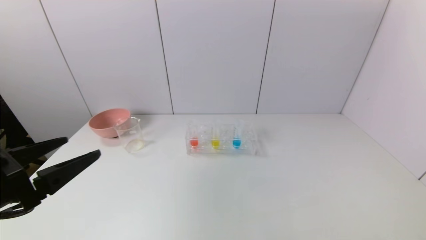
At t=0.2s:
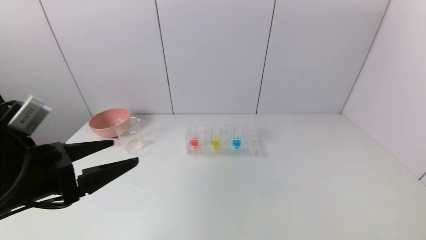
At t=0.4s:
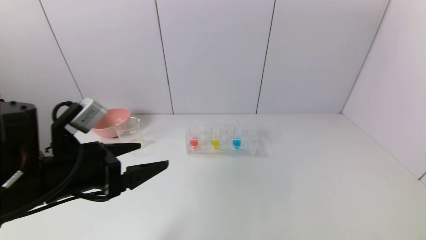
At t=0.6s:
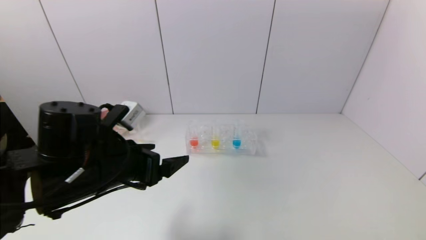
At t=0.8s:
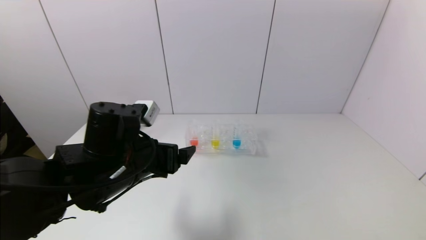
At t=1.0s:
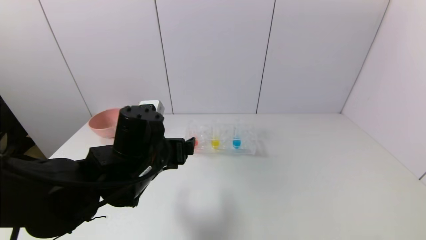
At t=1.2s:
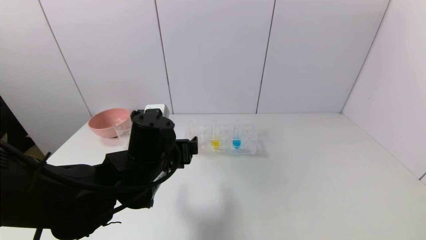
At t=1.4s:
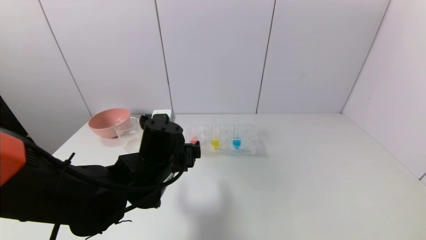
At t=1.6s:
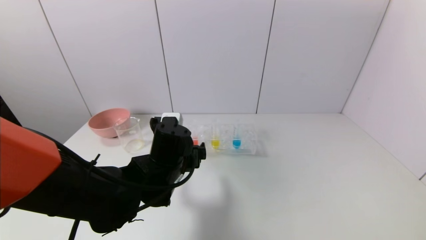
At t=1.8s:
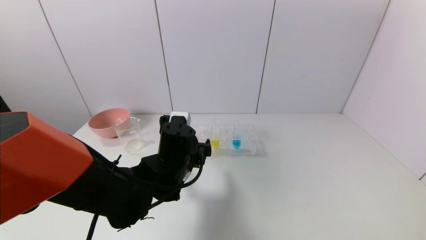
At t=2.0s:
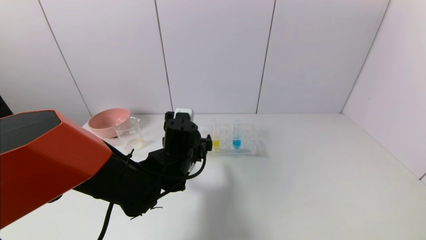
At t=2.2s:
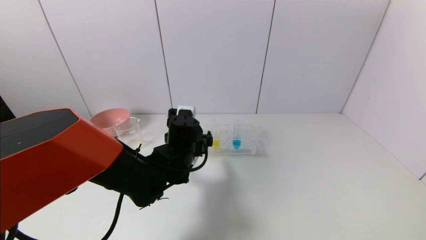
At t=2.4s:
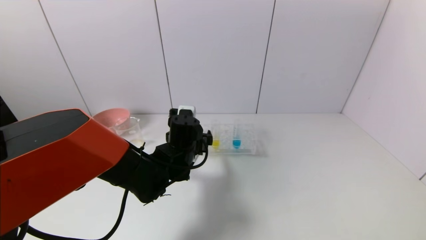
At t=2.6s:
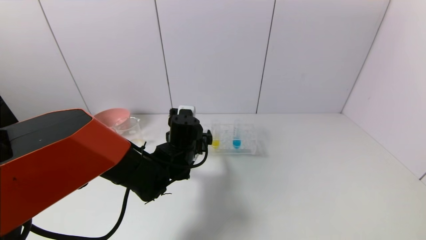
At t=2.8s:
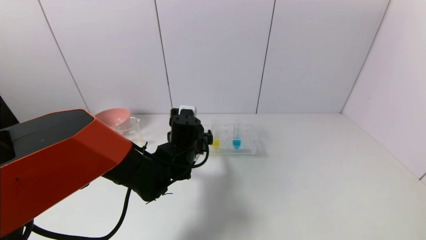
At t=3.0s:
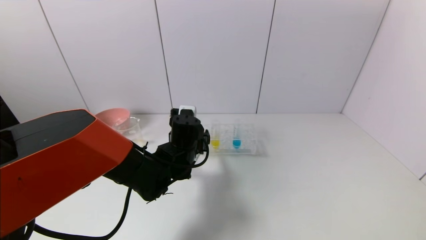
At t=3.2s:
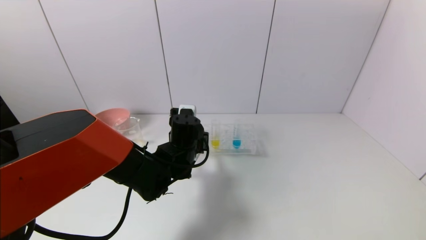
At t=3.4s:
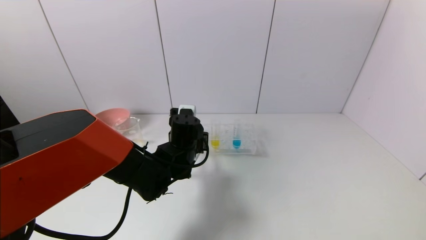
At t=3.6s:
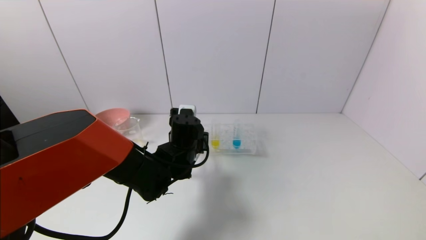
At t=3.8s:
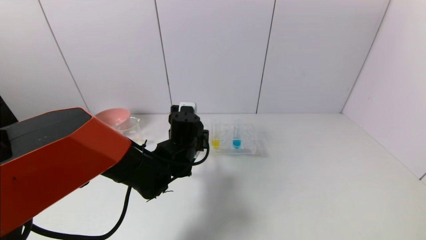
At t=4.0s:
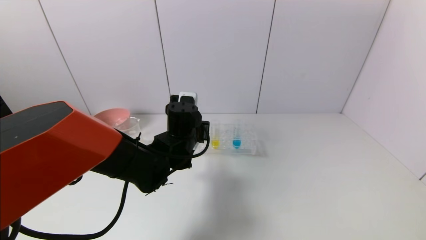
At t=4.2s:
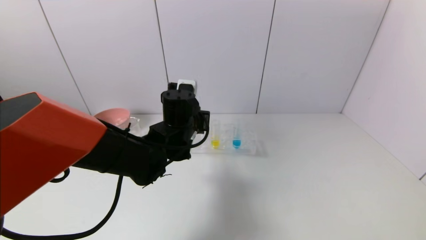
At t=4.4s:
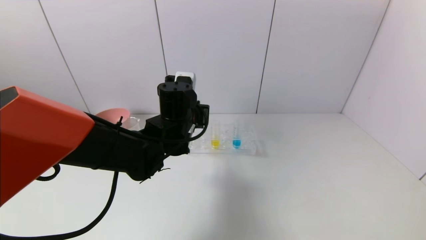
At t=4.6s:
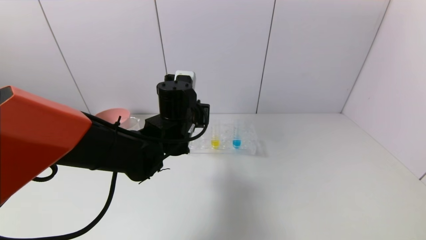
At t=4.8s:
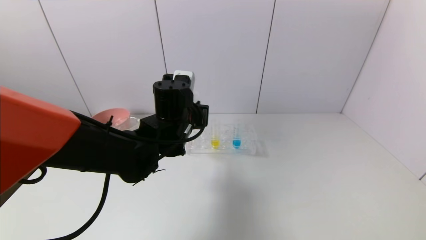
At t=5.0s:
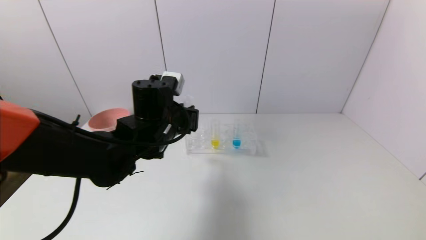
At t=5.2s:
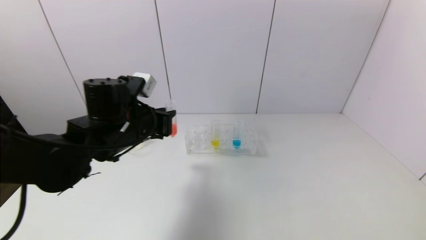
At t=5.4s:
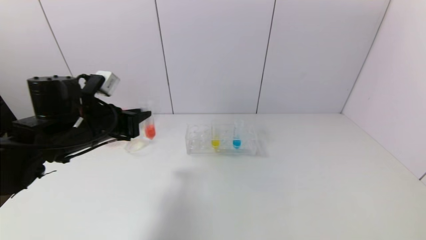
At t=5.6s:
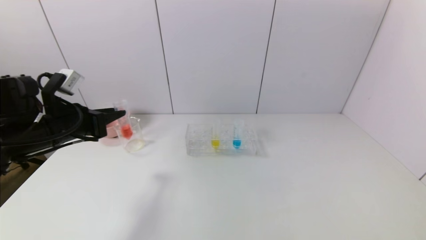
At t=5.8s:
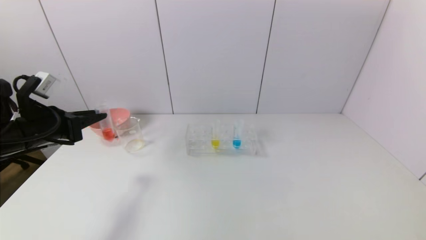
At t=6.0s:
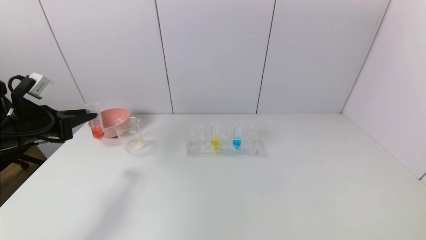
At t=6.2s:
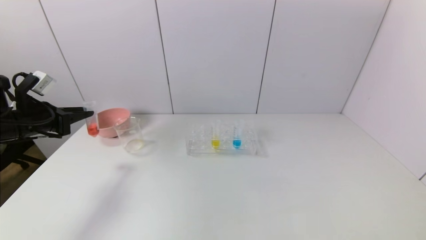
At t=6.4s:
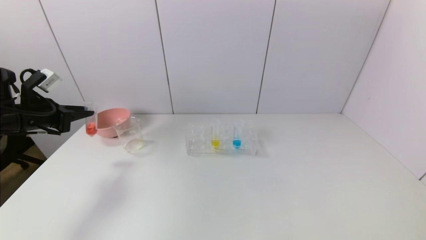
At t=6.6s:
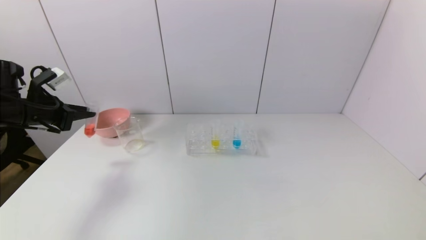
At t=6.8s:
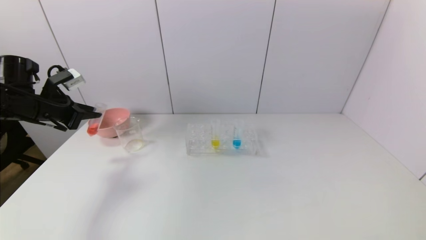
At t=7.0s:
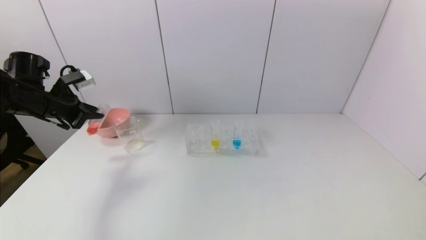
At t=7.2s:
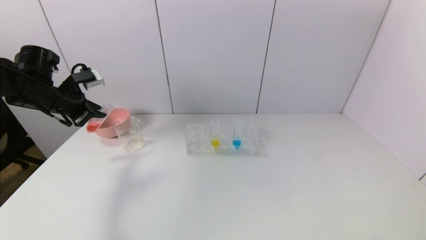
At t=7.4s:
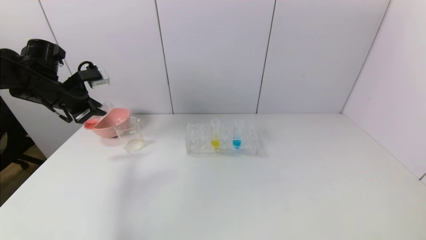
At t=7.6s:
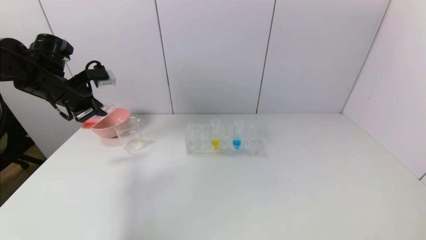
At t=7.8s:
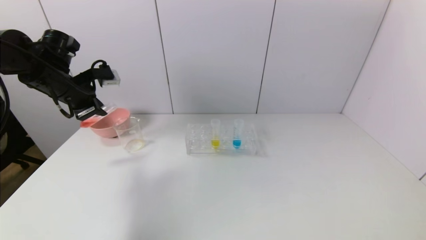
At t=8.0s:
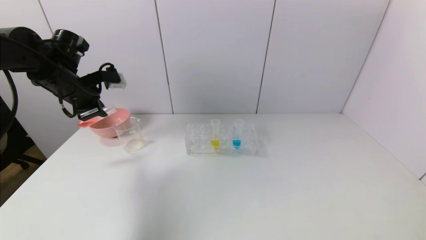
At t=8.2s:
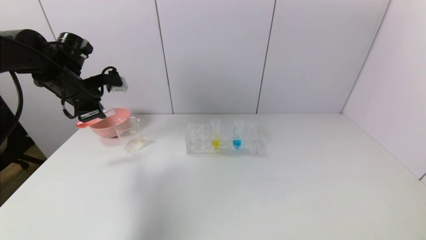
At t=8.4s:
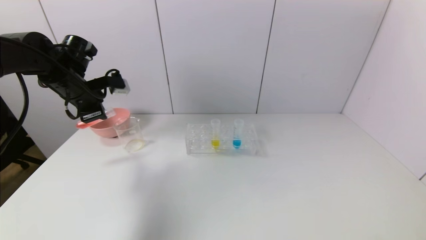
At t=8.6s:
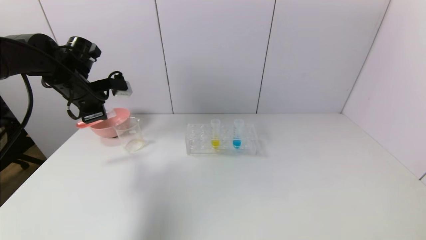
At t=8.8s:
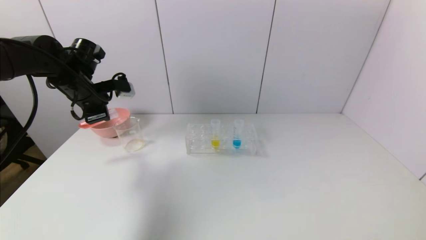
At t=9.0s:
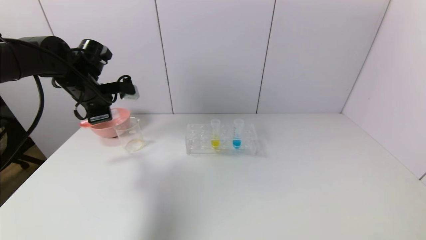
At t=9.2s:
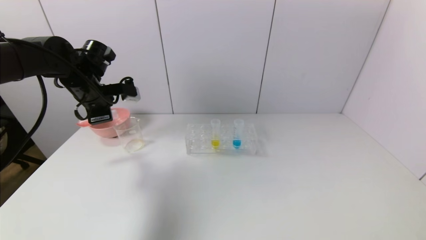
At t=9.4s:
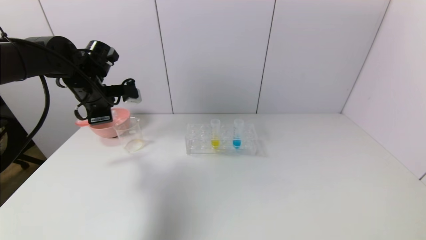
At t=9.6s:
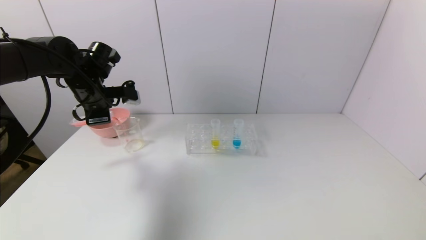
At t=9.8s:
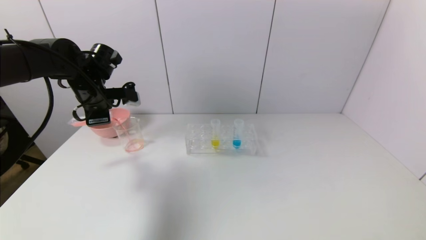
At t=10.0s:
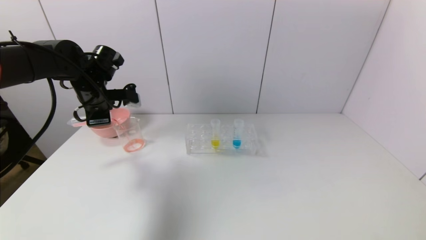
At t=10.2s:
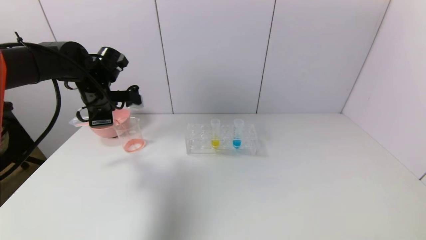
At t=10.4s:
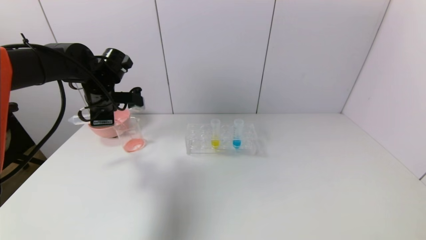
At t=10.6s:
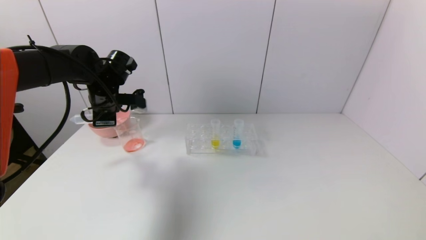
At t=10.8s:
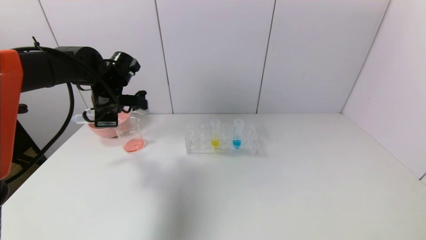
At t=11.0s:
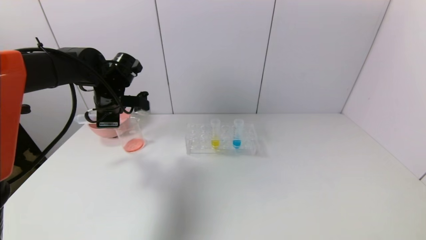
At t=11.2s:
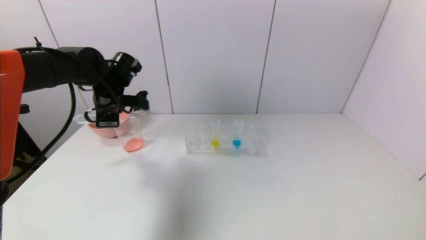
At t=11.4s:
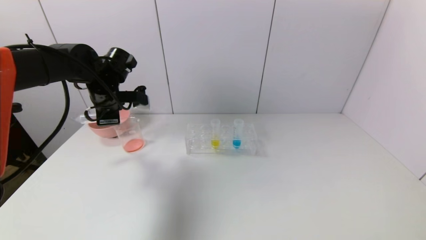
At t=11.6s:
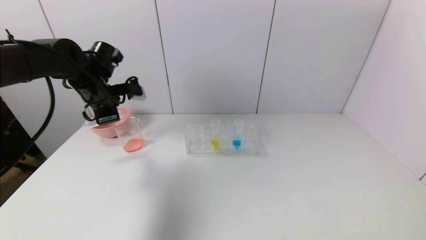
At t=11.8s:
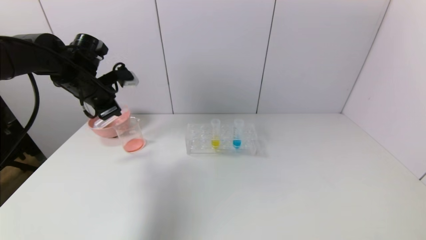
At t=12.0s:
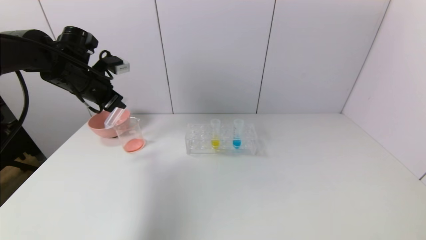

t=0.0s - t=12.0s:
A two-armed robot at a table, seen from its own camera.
Task of the whole recording: pick up the test tube with yellow pigment and the test tube with red pigment by grippers and pour them into the beaker.
Step, t=0.0s - t=3.6s: Grasp the red reagent with the left gripper.
Step, t=3.8s - t=11.0s: Pour the red reagent into the graduated cylinder with the left gripper.
t=0.0s - t=1.6s: The left gripper moves to the right, forward and downward, approximately 25 cm.
t=1.6s - t=3.0s: The left gripper is displaced forward by approximately 5 cm.
t=3.0s - t=4.4s: The left gripper moves upward, approximately 10 cm, and closes its fingers.
t=4.4s - t=6.0s: The left gripper goes approximately 30 cm to the left.
t=6.0s - t=7.6s: The left gripper travels forward and upward by some 10 cm.
t=7.6s - t=9.0s: The left gripper changes place by roughly 5 cm.
t=9.0s - t=10.4s: There are only small adjustments of the grippers.
t=10.4s - t=12.0s: The left gripper changes place by roughly 5 cm.

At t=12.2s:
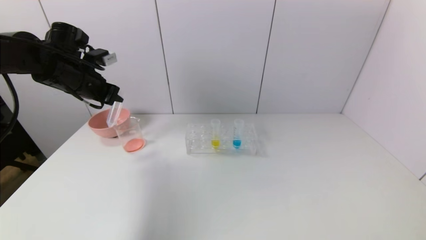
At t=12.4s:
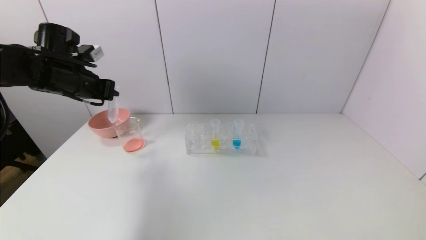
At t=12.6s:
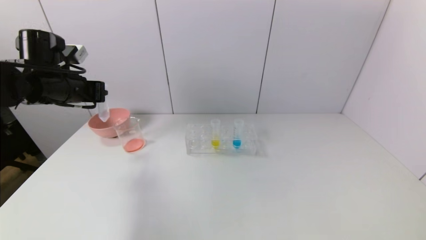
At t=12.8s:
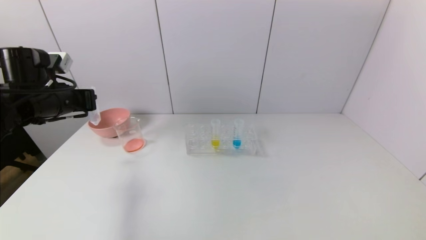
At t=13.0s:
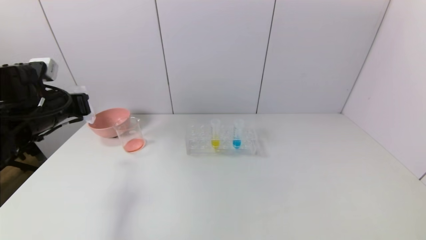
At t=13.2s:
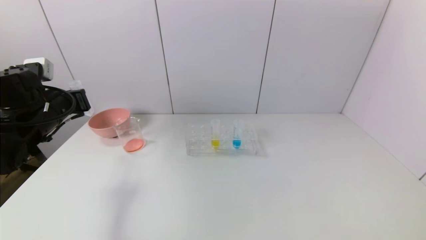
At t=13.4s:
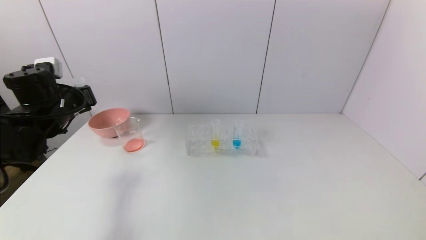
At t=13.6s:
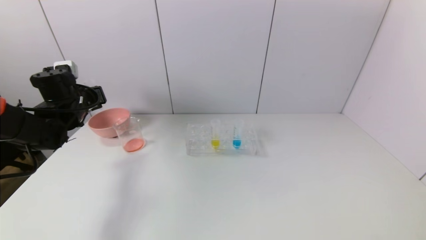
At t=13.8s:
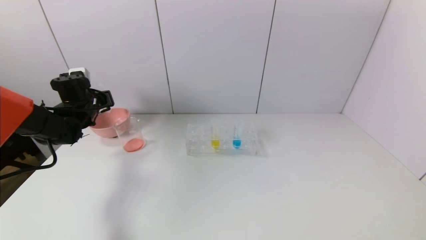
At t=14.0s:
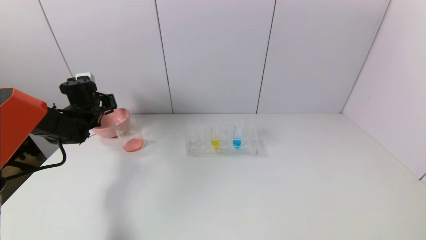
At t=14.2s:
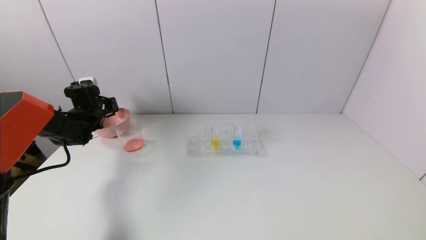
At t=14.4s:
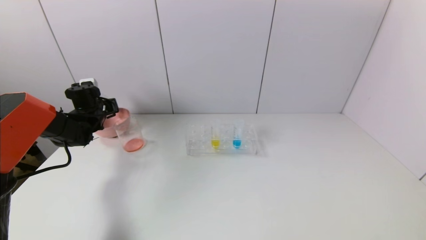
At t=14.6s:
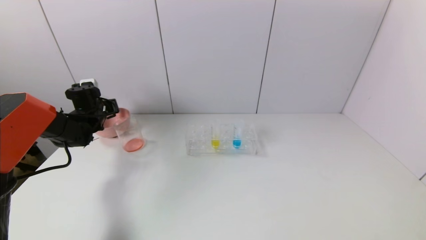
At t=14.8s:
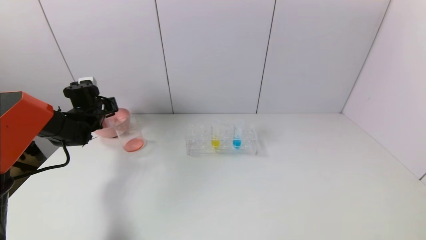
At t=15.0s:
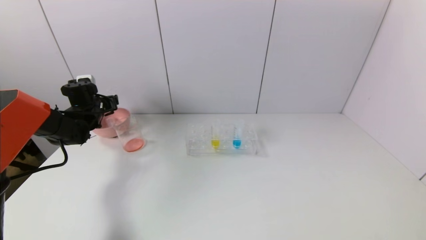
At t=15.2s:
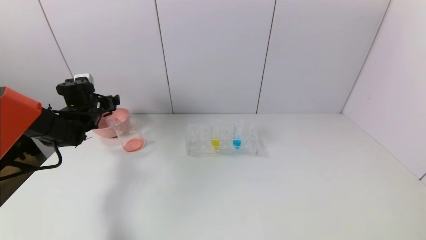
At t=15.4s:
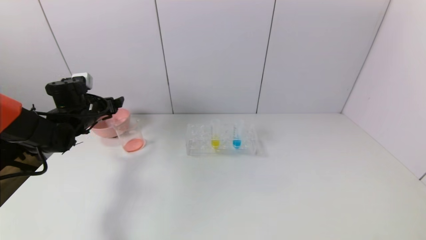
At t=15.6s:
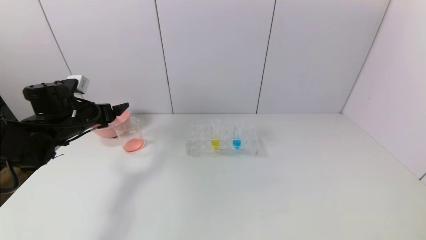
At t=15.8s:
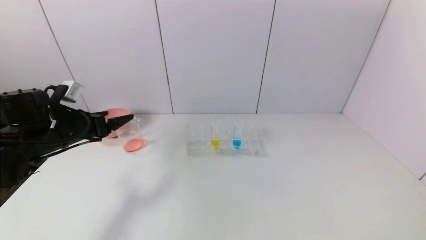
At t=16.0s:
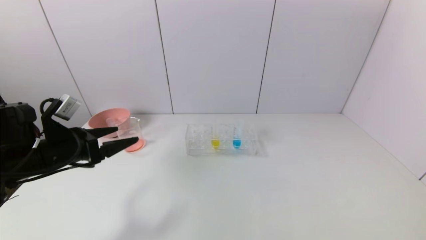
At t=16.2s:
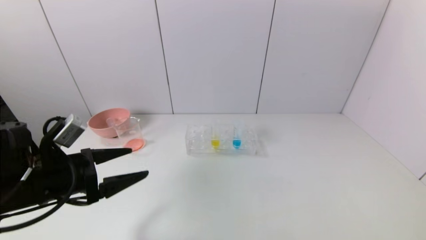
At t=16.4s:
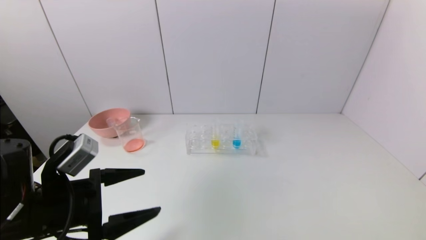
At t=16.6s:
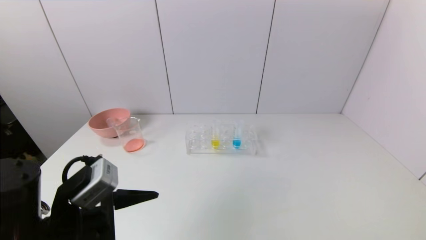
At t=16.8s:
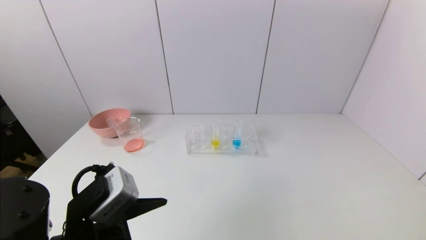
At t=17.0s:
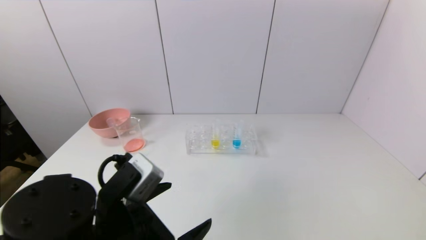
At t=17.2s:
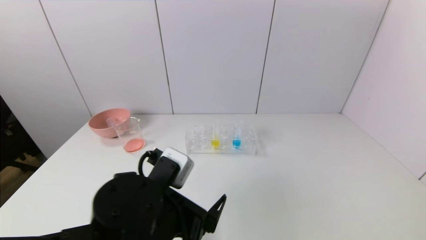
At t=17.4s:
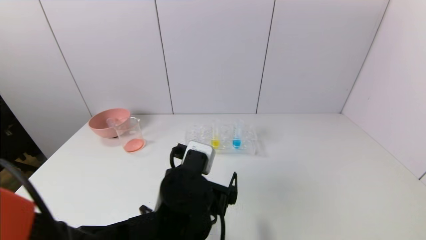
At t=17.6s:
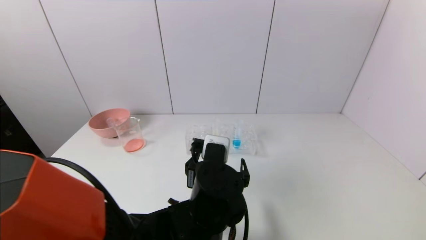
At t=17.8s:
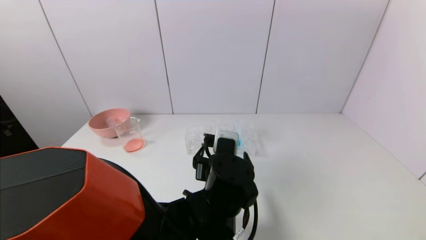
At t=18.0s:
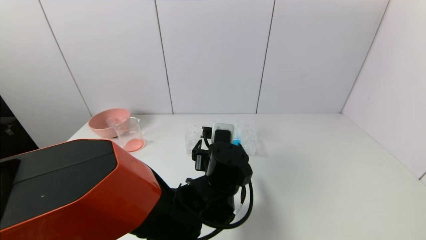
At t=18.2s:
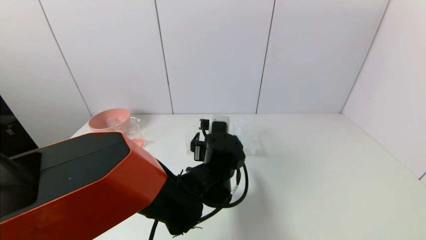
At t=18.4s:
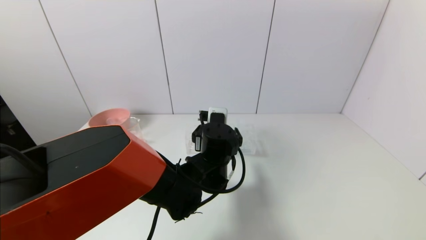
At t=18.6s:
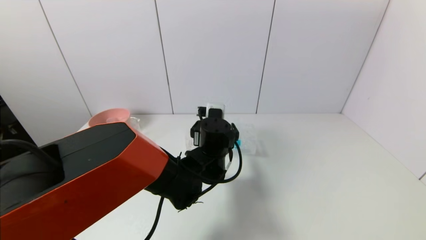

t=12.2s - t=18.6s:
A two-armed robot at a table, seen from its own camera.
Task of the whole recording: pick up the test tube with yellow pigment and the test tube with red pigment by grippers and pour them into the beaker.
Step, t=12.2s - t=14.8s: Place the test tube into the pink bowl with the left gripper.
t=12.2s - t=13.8s: The left gripper is displaced downward and forward by roughly 15 cm.
t=13.8s - t=15.4s: The left gripper opens up.
t=15.4s - t=17.0s: The left gripper heads backward and to the right, covering roughly 35 cm.
t=17.0s - t=18.6s: The left gripper goes approximately 25 cm forward and to the right.
